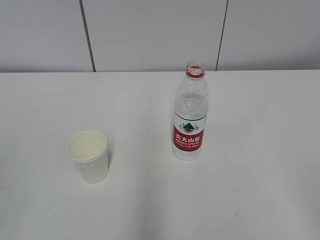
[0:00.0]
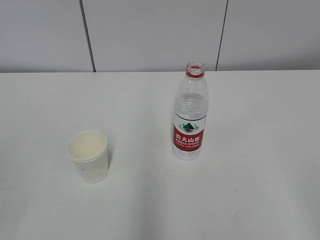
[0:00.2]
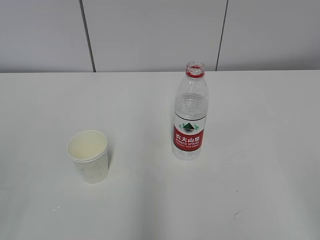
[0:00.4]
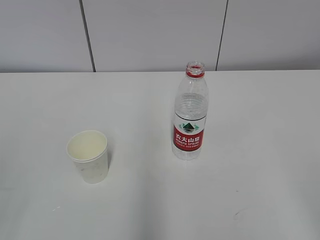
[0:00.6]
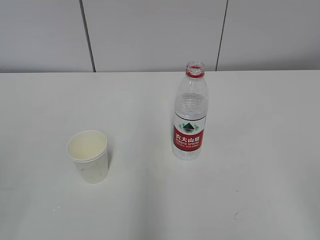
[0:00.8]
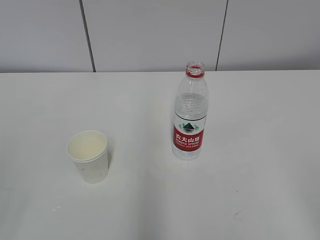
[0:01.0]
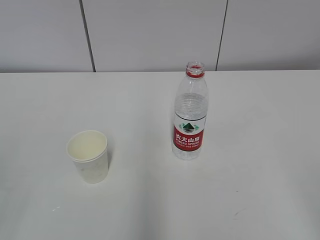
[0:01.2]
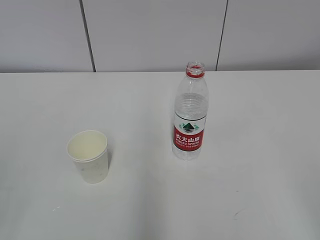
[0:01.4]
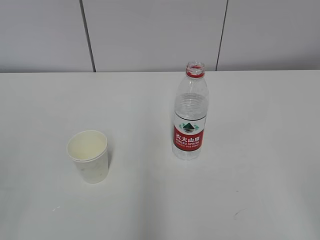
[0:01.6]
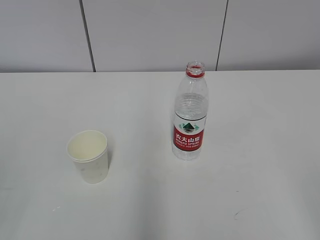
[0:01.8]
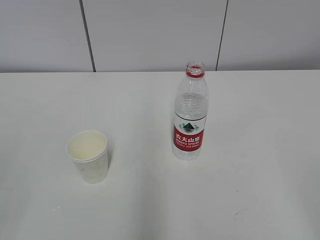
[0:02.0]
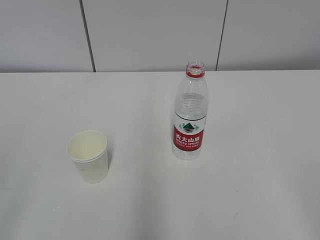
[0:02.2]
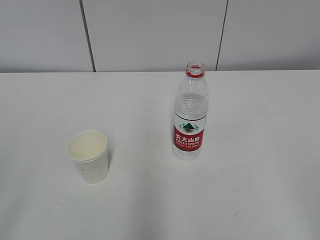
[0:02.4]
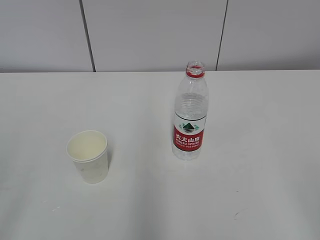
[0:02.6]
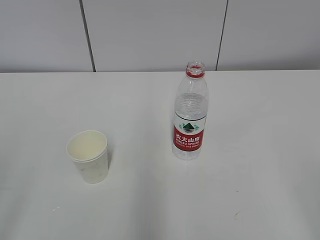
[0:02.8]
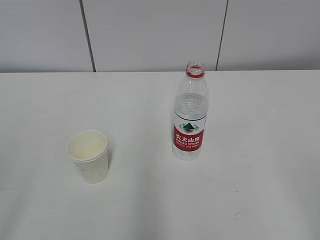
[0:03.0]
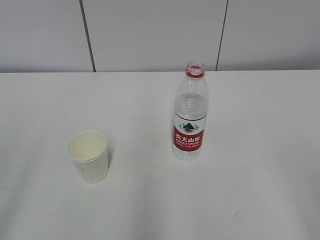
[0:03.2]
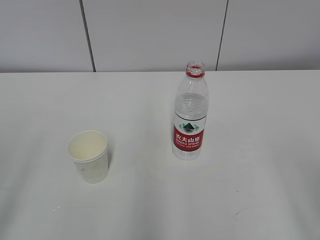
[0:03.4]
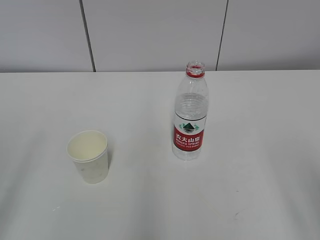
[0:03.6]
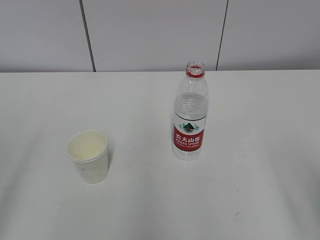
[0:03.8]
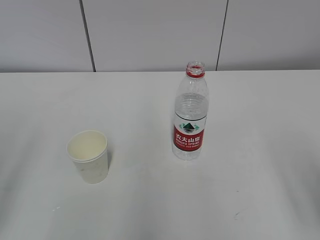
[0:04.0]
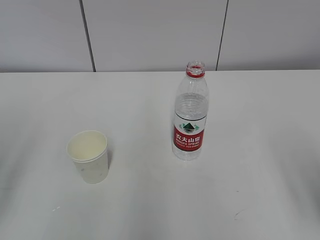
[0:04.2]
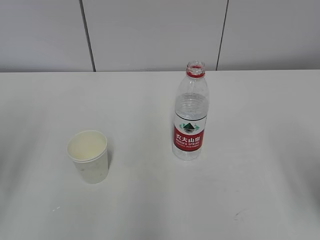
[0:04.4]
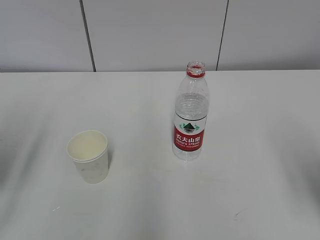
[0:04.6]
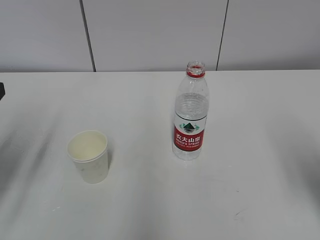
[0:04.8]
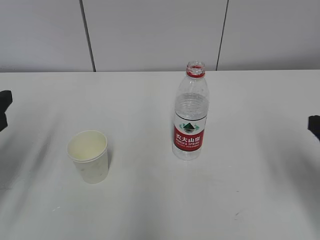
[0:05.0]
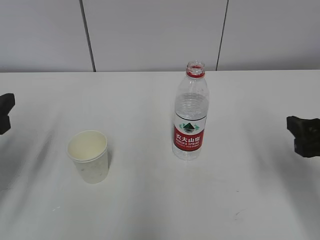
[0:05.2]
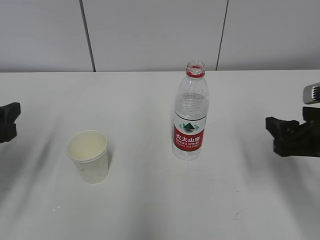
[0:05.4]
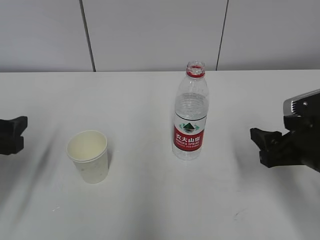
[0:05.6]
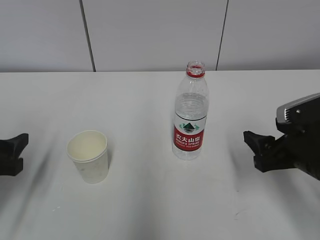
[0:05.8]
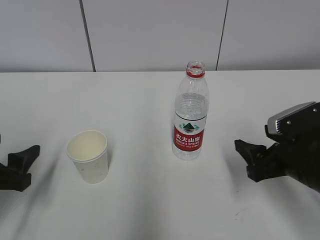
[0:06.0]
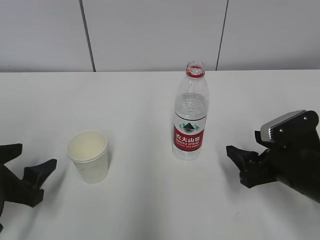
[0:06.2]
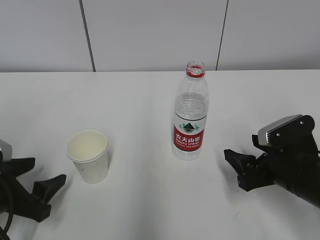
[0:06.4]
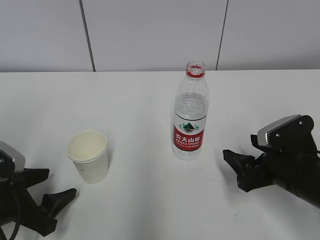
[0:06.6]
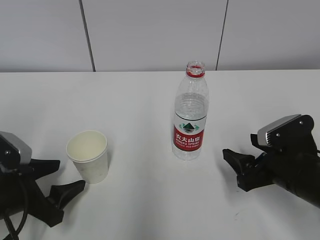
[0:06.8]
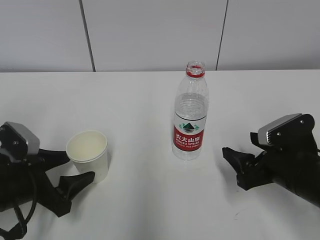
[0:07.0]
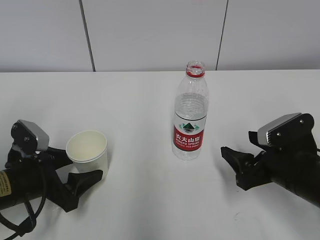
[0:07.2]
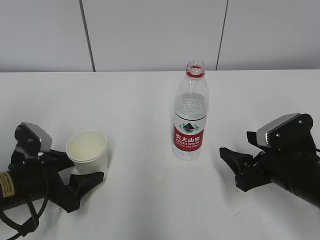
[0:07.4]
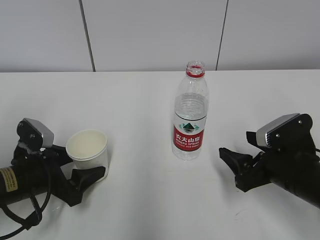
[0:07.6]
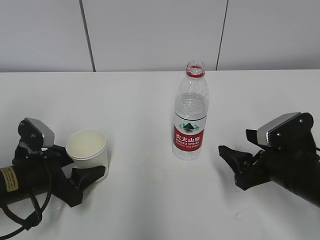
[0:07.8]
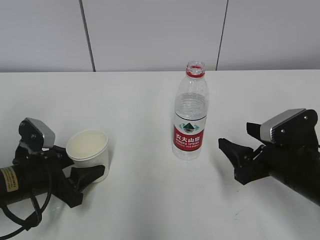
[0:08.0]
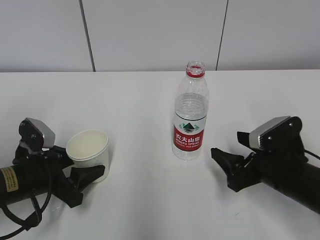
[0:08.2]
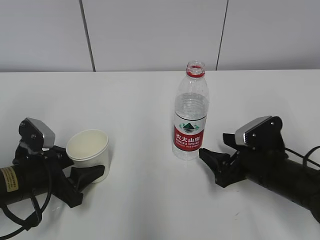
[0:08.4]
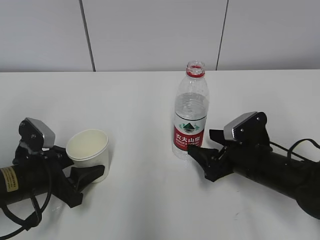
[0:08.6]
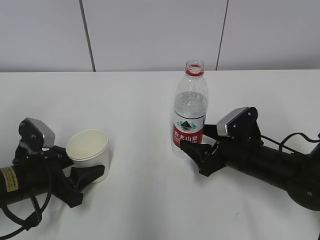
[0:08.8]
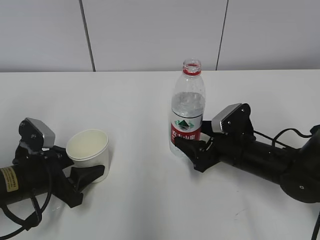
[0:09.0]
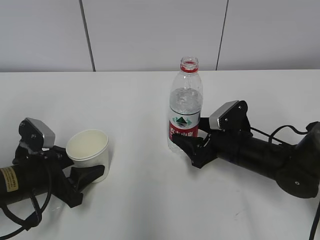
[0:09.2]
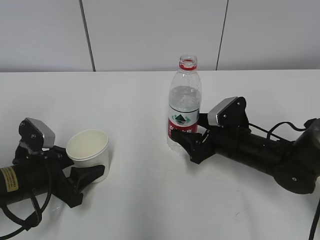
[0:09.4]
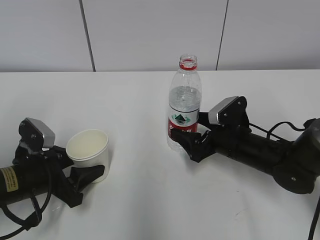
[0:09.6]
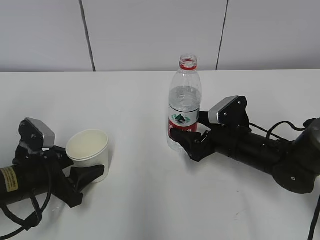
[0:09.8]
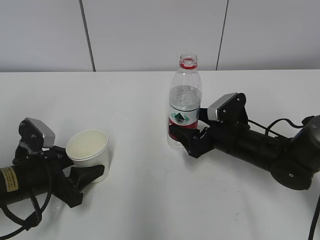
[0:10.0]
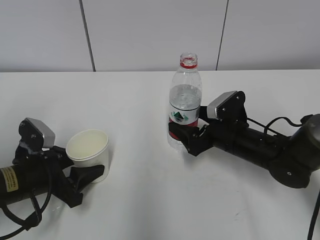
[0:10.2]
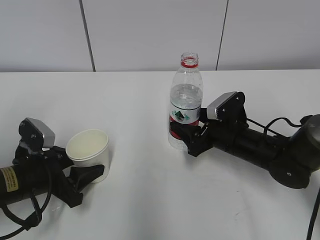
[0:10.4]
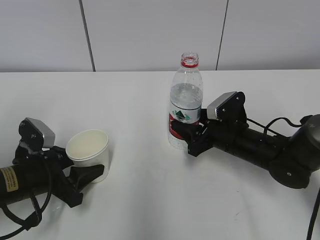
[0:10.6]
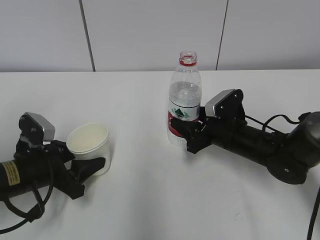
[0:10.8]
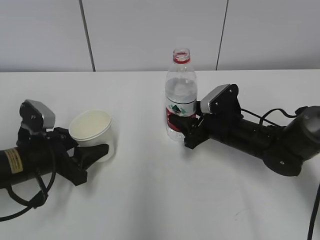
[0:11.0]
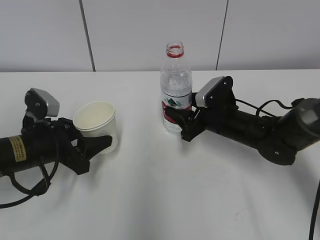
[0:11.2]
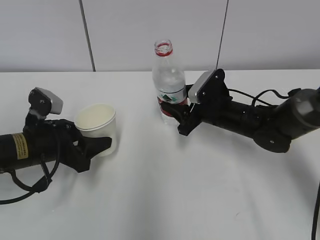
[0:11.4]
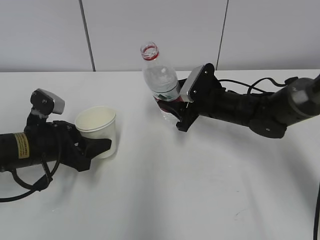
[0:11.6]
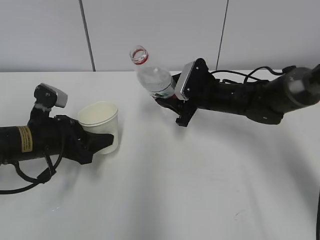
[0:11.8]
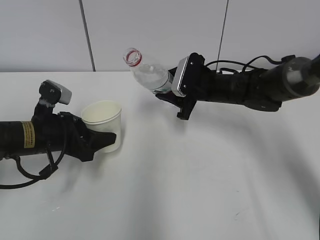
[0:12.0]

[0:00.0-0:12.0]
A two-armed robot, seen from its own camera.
Step, 0:00.0 to 0:08.8: Grab the paper cup with the left hand.
Step, 0:09.0 to 0:09.2: Grab the water bottle with the right hand.
Step, 0:09.4 to 0:11.6: Lift the paper cup with the left hand.
0:04.4 to 0:06.0: The left gripper moves downward, approximately 15 cm, while the right gripper heads downward, forward and to the left, covering approximately 15 cm.
0:06.0 to 0:07.6: The left gripper moves downward and forward, about 10 cm.
0:07.6 to 0:09.0: The left gripper closes up. The right gripper travels forward by some 10 cm.
0:09.0 to 0:10.4: The right gripper closes its fingers.
0:10.4 to 0:12.0: The right gripper moves forward and upward, approximately 10 cm. Meanwhile the left gripper heads forward, covering roughly 5 cm.

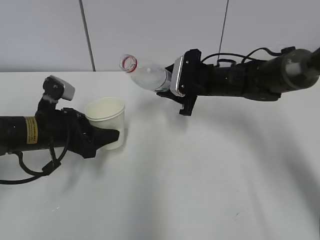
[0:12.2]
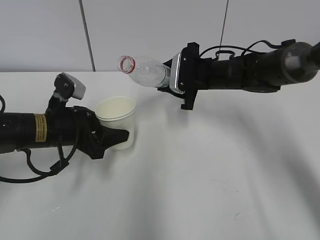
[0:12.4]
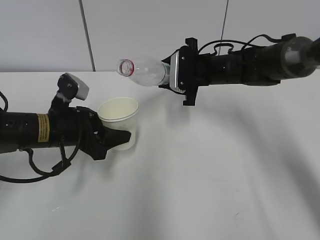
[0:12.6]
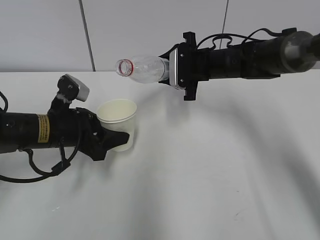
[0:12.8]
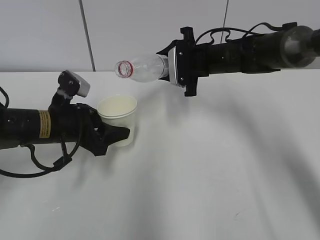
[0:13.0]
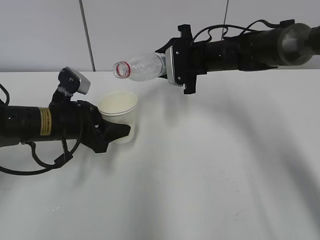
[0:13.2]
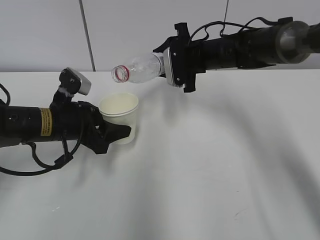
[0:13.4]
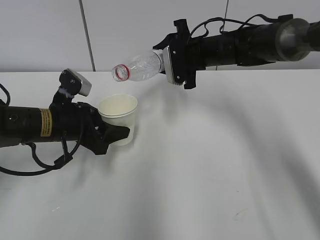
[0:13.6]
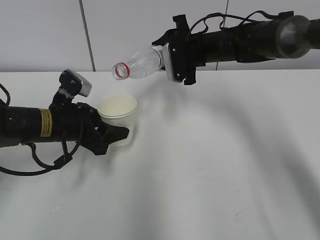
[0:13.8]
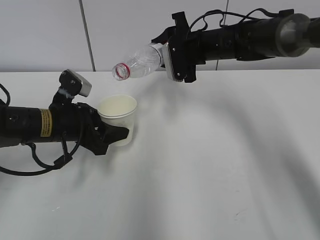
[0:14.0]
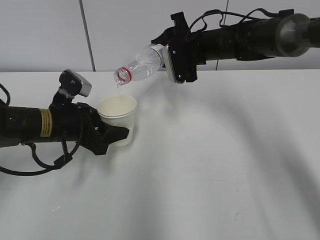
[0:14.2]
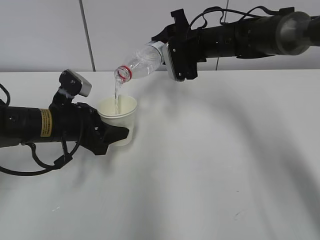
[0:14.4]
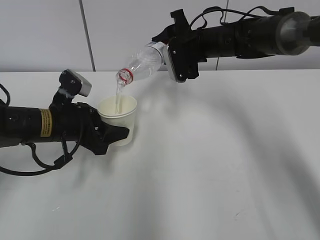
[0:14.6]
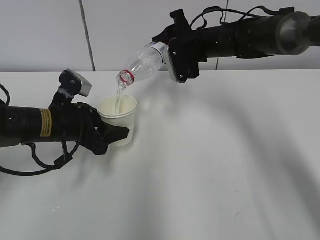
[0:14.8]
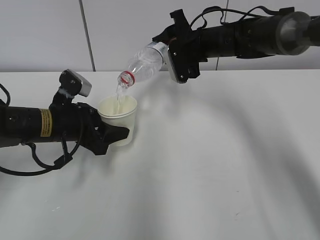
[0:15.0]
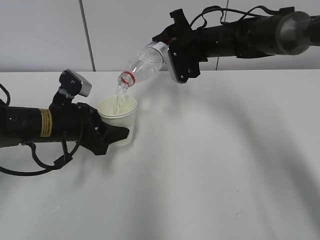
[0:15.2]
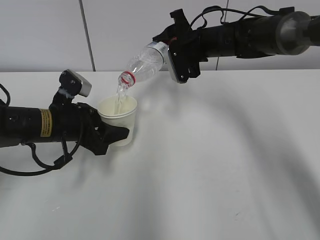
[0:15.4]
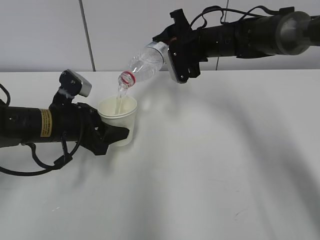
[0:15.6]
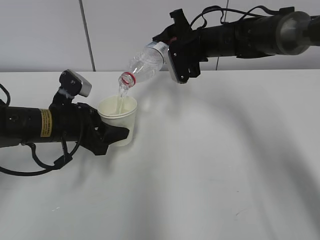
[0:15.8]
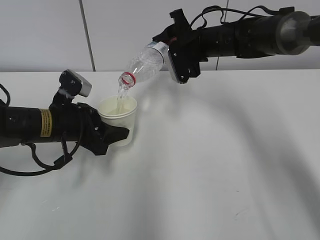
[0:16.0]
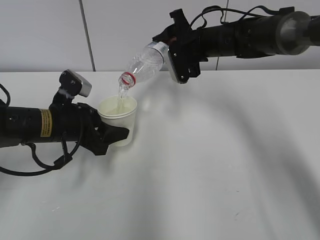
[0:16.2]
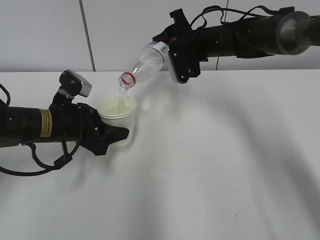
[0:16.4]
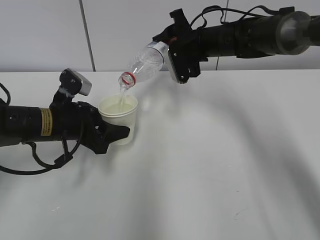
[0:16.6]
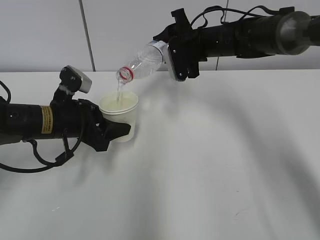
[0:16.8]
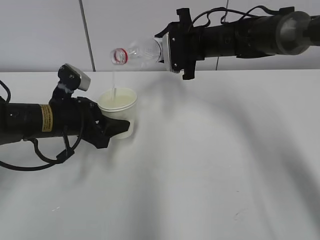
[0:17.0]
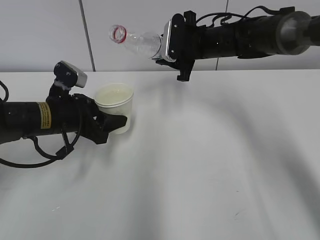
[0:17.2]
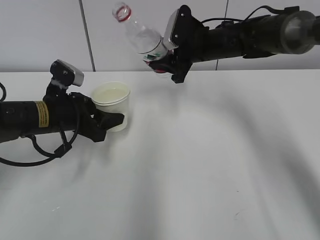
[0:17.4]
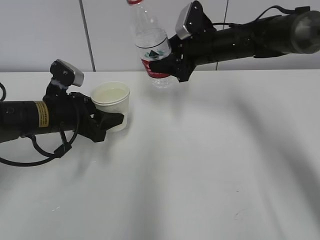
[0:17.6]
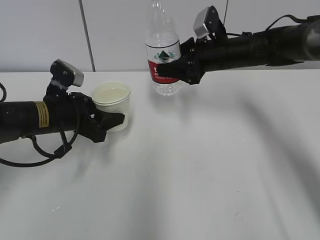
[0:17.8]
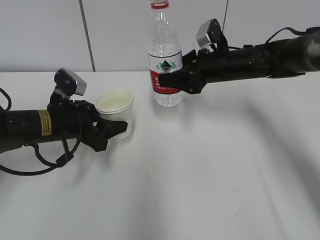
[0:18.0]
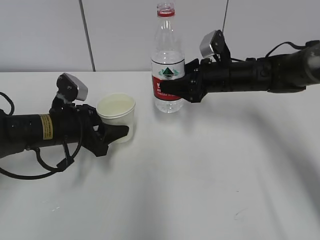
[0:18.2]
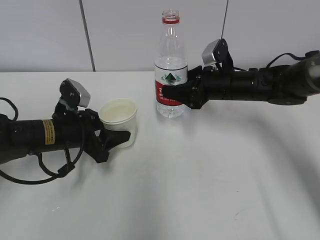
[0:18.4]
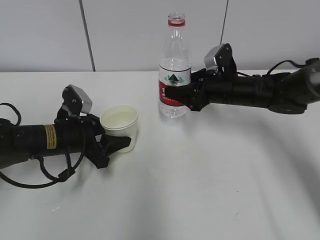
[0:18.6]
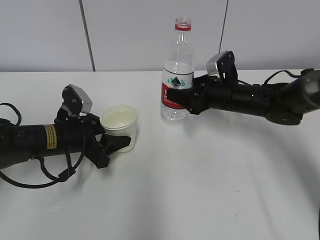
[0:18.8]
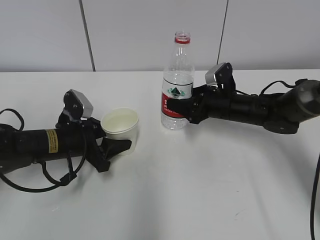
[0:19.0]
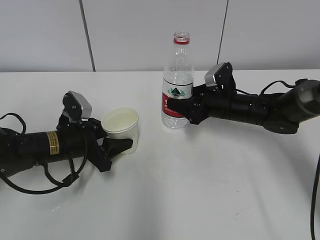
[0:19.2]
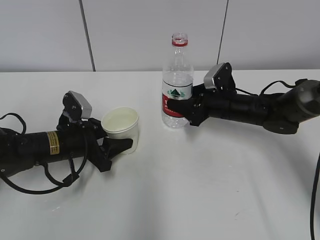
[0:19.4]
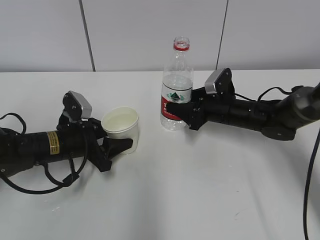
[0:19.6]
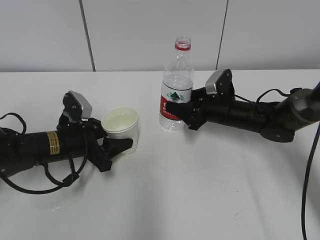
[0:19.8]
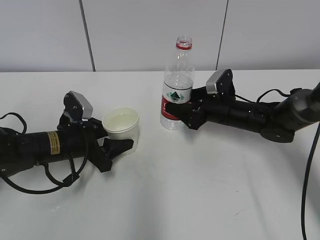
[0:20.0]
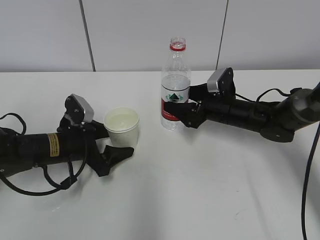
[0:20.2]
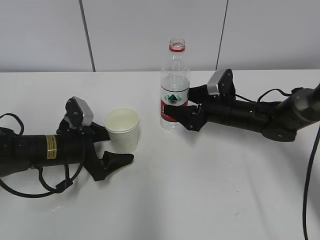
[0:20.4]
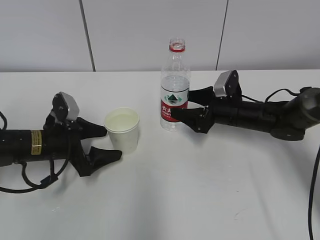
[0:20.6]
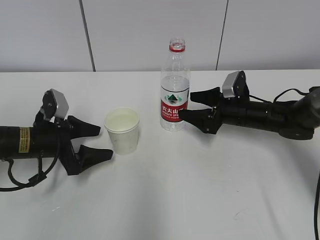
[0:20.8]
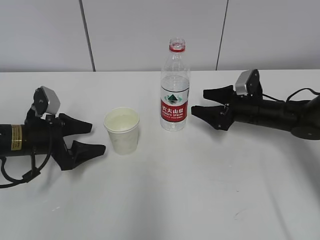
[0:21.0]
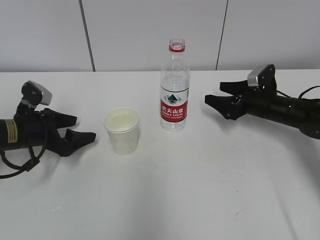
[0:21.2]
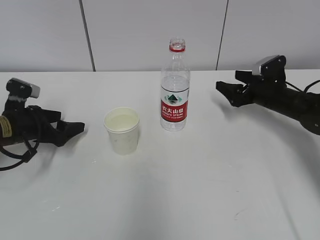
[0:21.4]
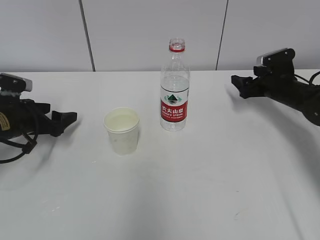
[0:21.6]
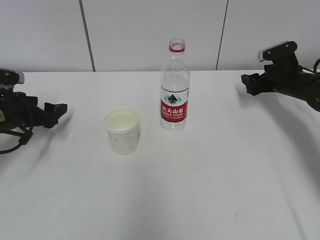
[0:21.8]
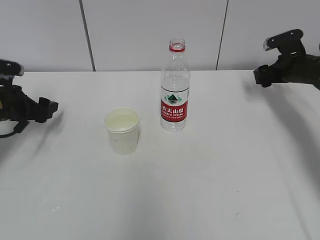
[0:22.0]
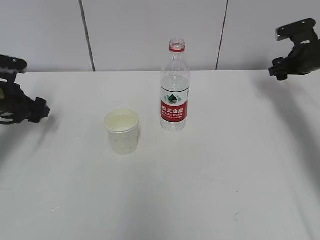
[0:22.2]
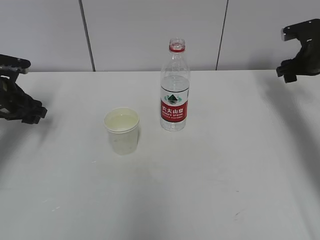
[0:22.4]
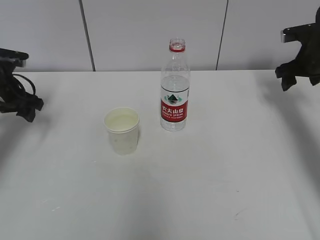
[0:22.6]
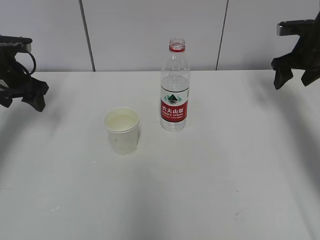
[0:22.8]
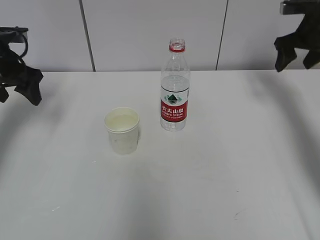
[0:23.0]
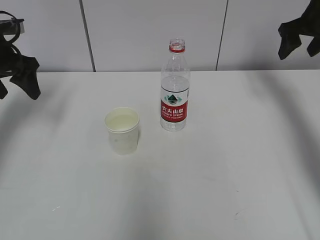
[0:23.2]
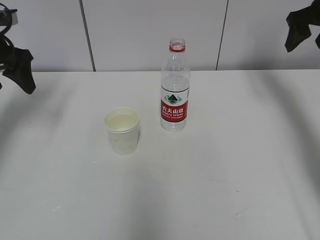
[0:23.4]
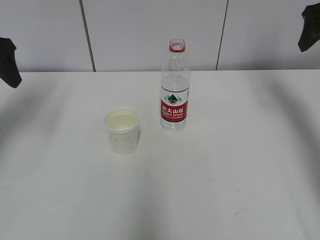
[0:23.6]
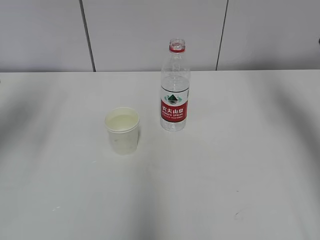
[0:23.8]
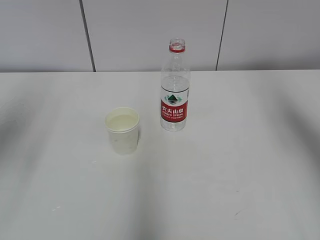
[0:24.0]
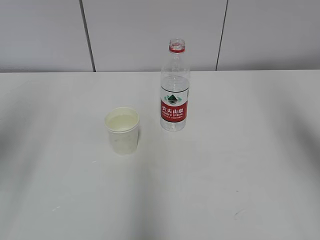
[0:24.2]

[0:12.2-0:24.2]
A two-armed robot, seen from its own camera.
Step, 0:12.2 to 0:14.2: Fill water with the left hand.
Step, 0:12.2 to 0:14.2: Pour water with the right hand.
Step, 0:15.0 to 0:16.6: Place the paper cup with the left hand.
0:12.2 to 0:13.8: The right gripper goes roughly 5 cm upward.
0:13.8 to 0:15.2: The grippers move only a little.
0:15.2 to 0:16.6: Both grippers stay put.
0:16.6 to 0:18.2: The right gripper heads downward, covering about 5 cm.
0:18.2 to 0:19.8: The right gripper moves downward, about 10 cm.
0:19.8 to 0:21.2: The left gripper shifts approximately 10 cm to the left, and opens. The right gripper is displaced to the right by some 10 cm, and opens.
0:21.2 to 0:22.6: The right gripper moves upward and to the right, some 15 cm, while the left gripper travels upward and forward by approximately 10 cm.
0:22.6 to 0:24.2: The grippers both shift backward and upward by roughly 30 cm.
